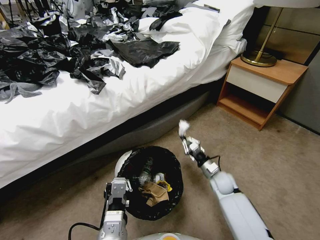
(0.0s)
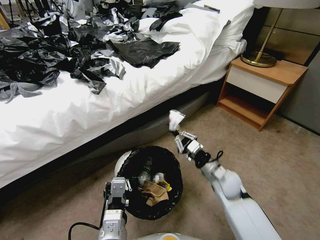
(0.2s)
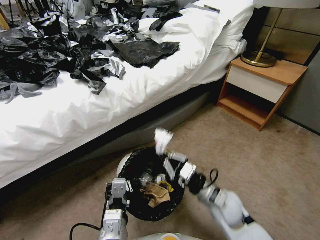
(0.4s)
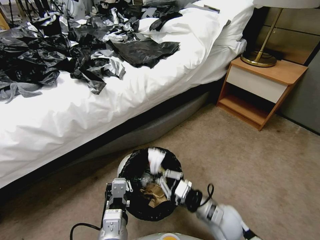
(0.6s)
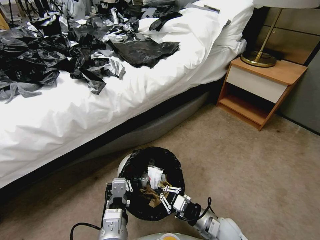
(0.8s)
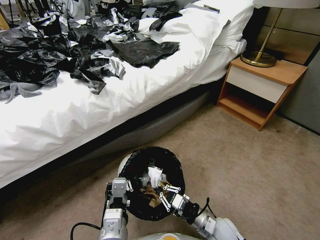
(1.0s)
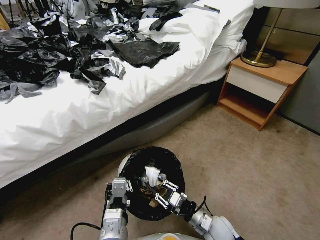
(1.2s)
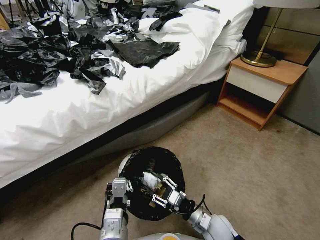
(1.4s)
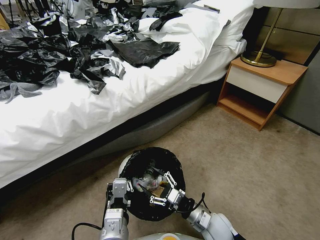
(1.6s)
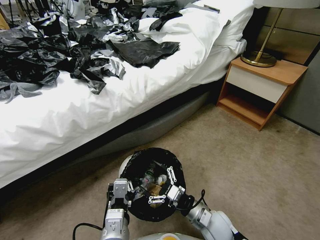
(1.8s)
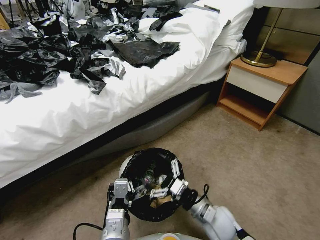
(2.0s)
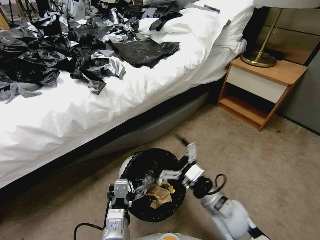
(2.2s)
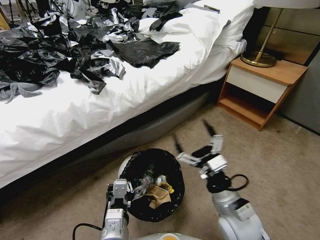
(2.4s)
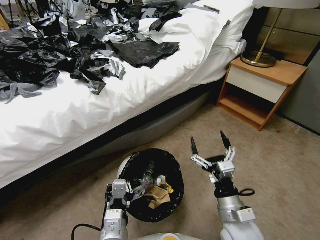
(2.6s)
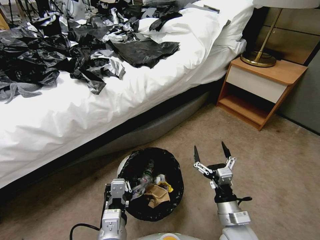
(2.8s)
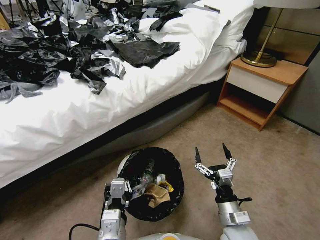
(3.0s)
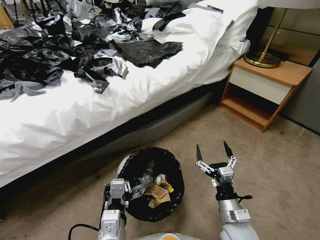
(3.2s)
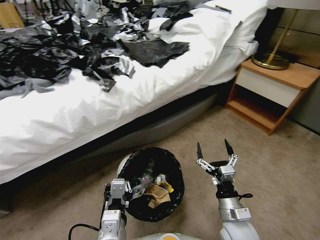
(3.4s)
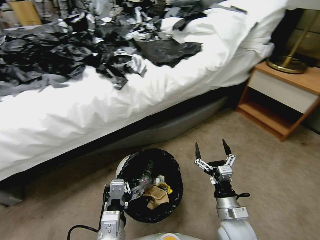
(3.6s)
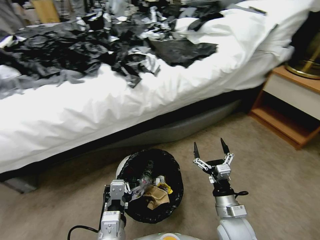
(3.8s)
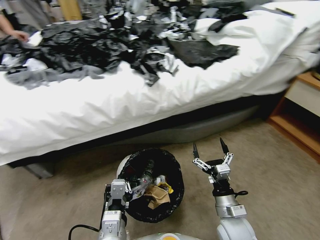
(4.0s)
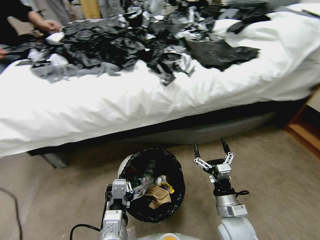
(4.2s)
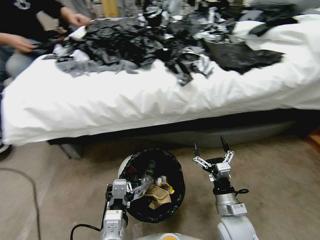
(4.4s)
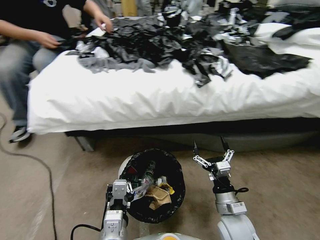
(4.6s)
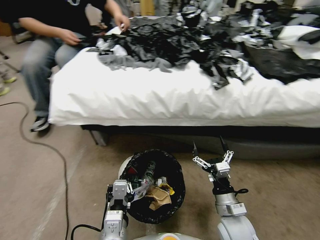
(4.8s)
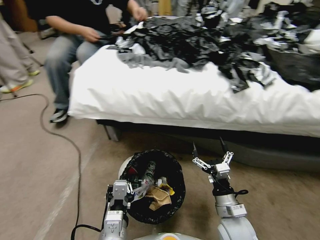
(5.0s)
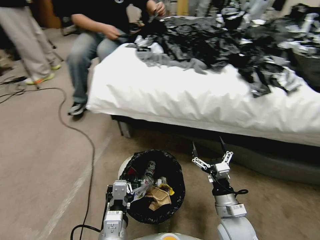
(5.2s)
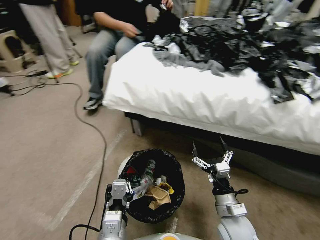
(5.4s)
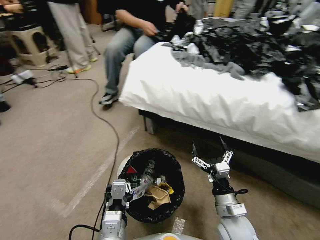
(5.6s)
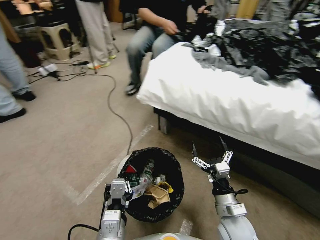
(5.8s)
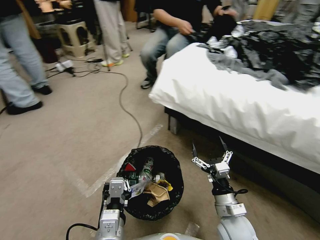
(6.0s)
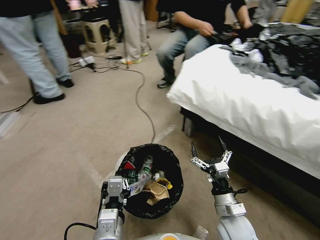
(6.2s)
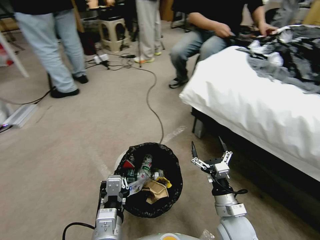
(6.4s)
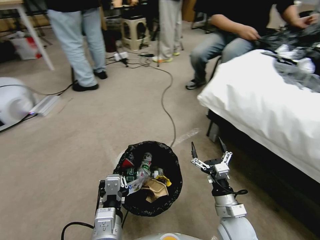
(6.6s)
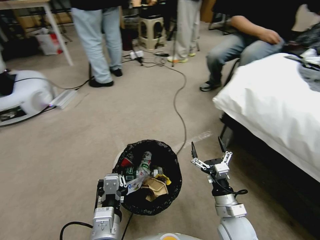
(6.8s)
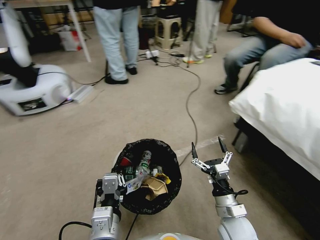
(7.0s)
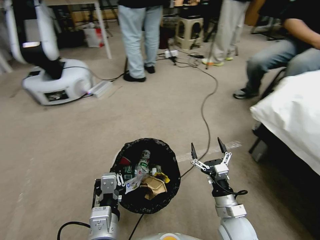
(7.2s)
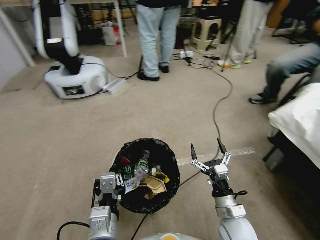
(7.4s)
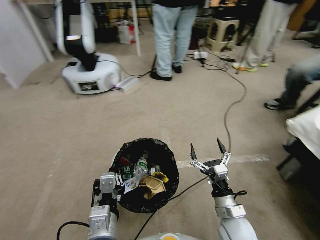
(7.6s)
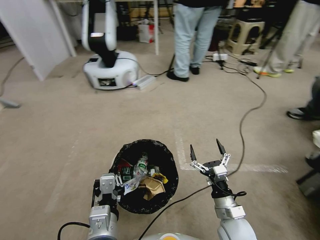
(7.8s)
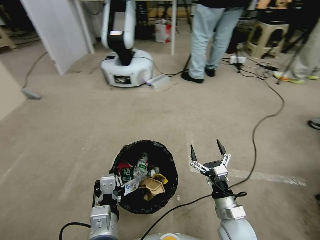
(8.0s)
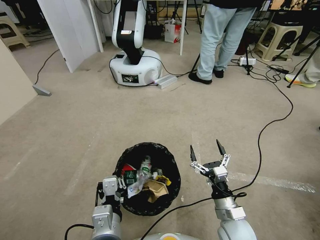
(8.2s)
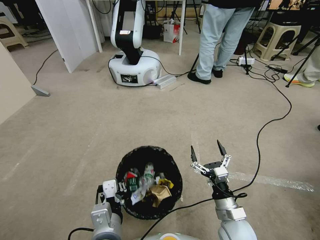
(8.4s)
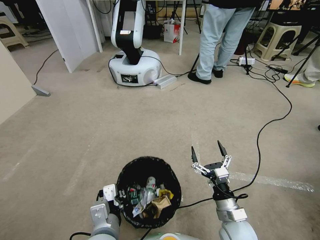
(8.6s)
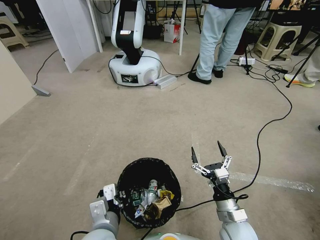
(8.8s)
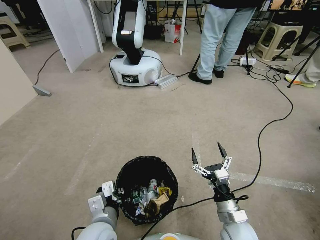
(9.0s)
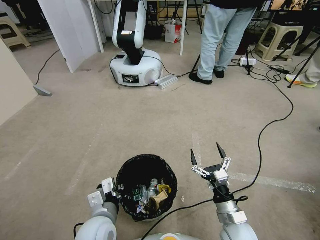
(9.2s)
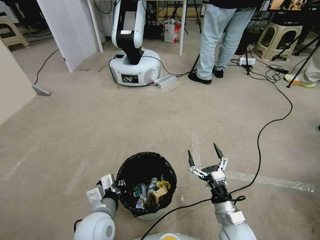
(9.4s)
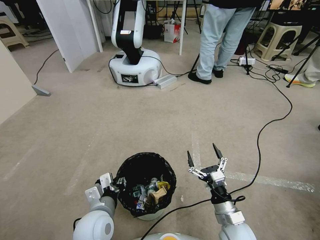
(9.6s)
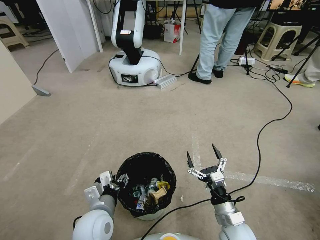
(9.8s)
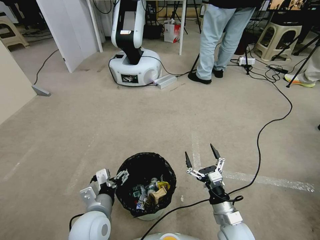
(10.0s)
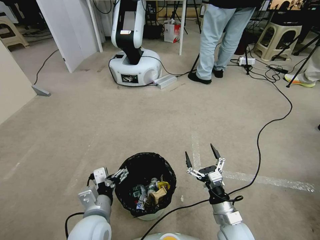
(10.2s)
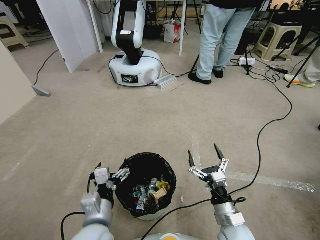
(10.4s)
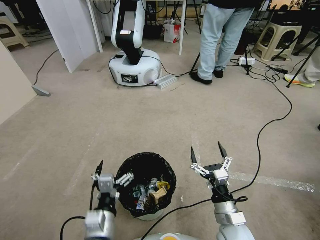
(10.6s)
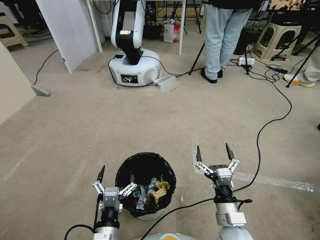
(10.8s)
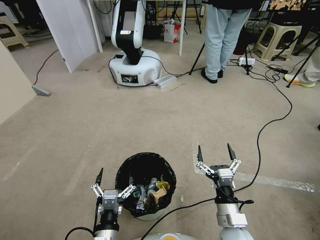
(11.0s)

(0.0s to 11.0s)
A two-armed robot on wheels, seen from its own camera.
Task of the whole recording: Pick up the trash bin, then pick up the garbage from the floor and place it into the trash bin.
0.0s - 1.6s: The right gripper heads backward and to the left, covering some 20 cm, and opens up.
1.6s - 3.2s: The right gripper shifts approximately 5 cm upward.
7.8s - 9.4s: The left gripper moves forward and downward, some 10 cm.
9.4s - 11.0s: The left gripper shifts some 10 cm backward, and opens up, while the right gripper changes place by approximately 5 cm.

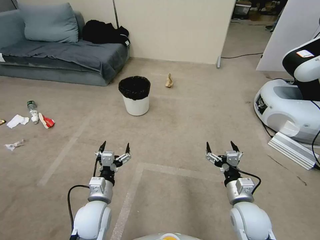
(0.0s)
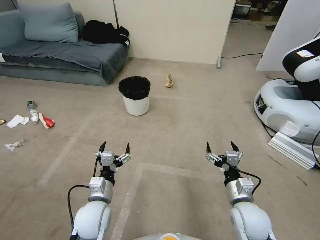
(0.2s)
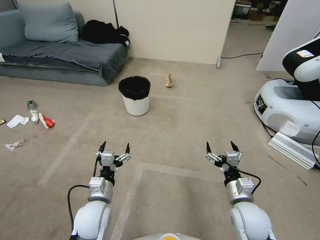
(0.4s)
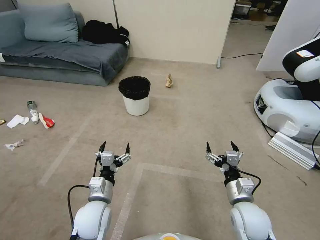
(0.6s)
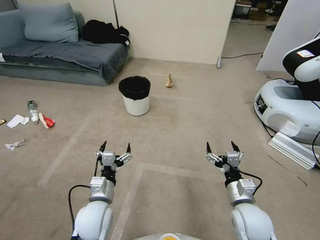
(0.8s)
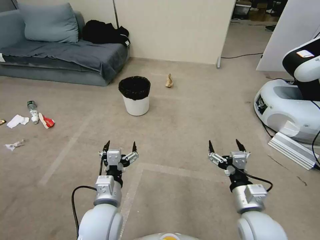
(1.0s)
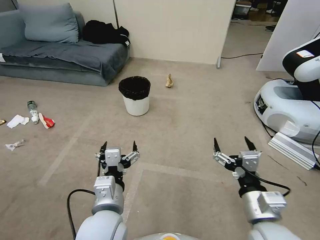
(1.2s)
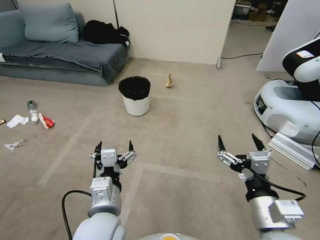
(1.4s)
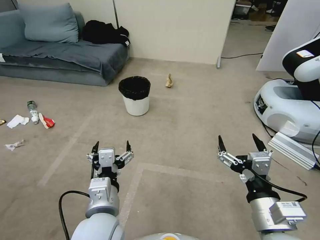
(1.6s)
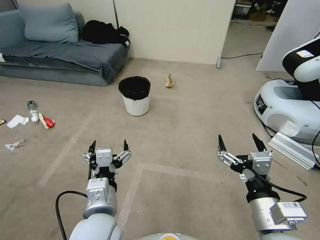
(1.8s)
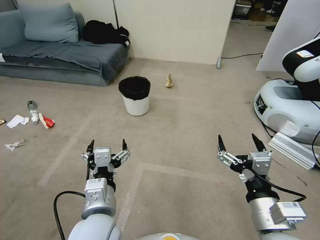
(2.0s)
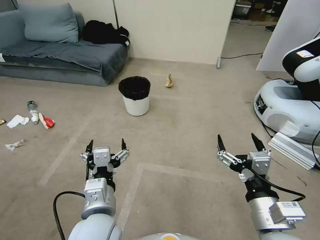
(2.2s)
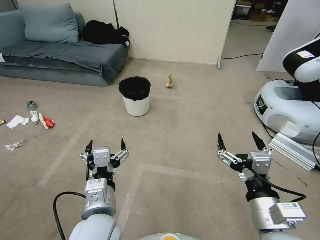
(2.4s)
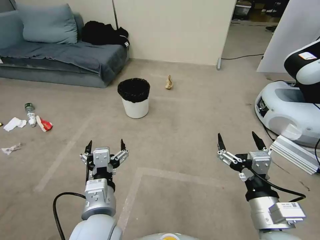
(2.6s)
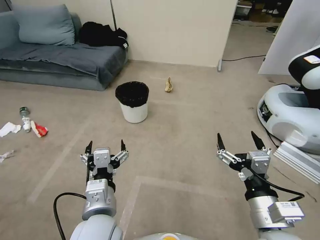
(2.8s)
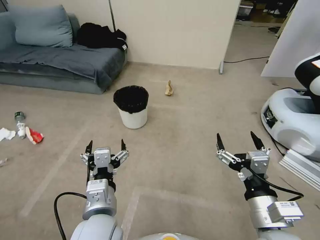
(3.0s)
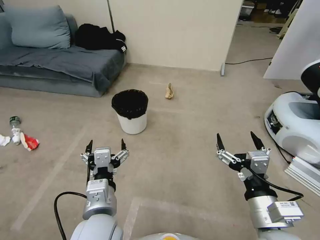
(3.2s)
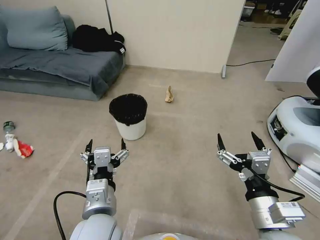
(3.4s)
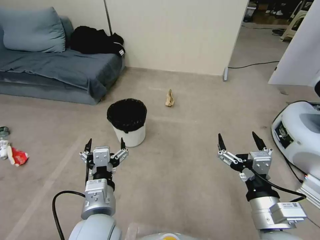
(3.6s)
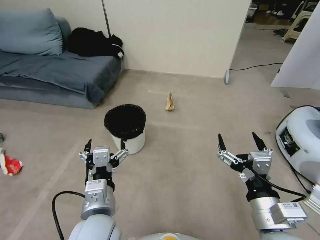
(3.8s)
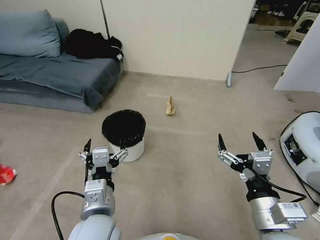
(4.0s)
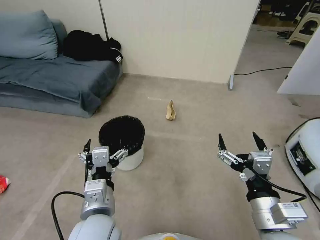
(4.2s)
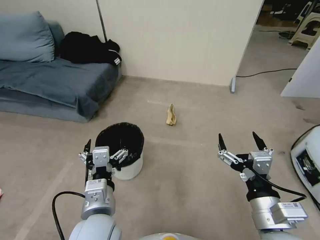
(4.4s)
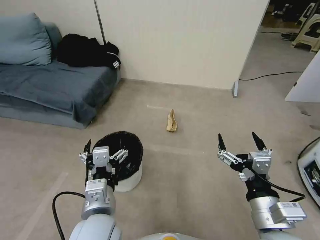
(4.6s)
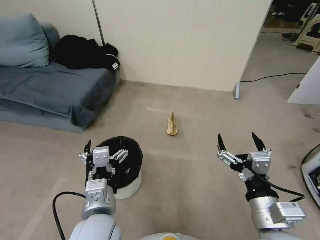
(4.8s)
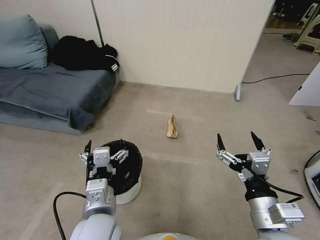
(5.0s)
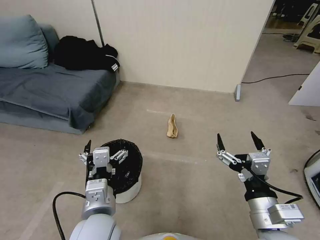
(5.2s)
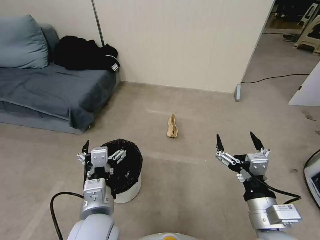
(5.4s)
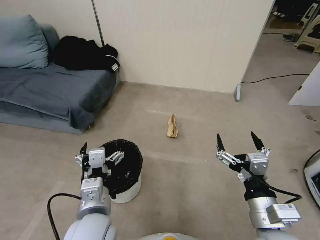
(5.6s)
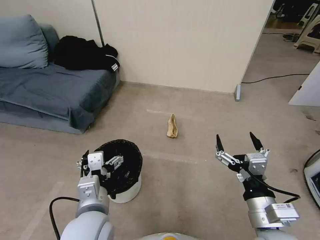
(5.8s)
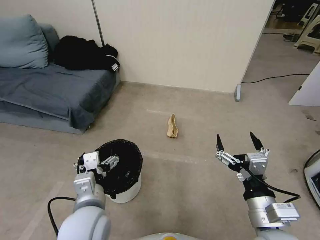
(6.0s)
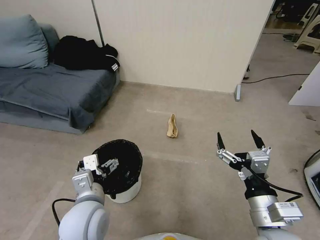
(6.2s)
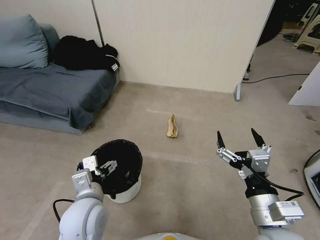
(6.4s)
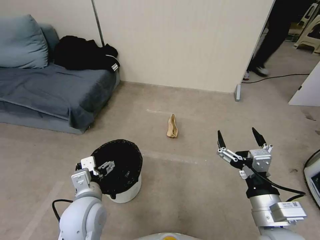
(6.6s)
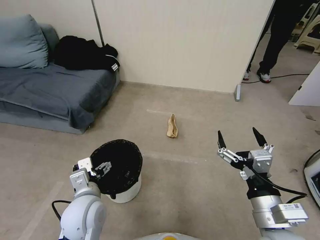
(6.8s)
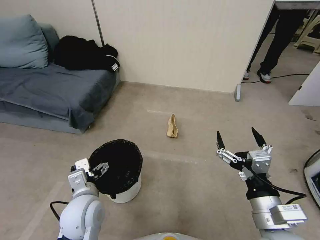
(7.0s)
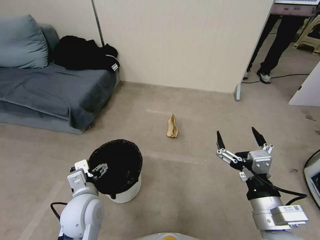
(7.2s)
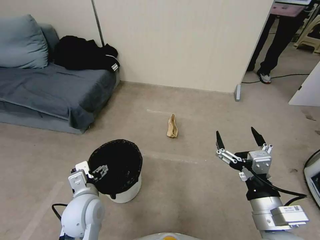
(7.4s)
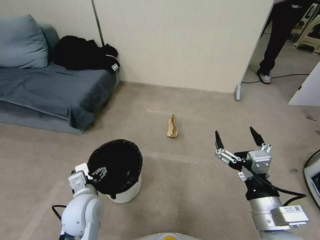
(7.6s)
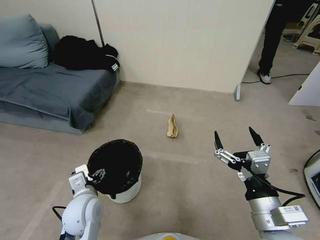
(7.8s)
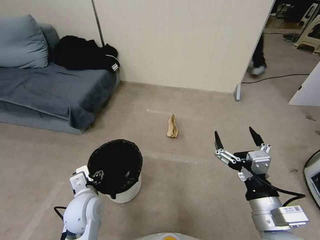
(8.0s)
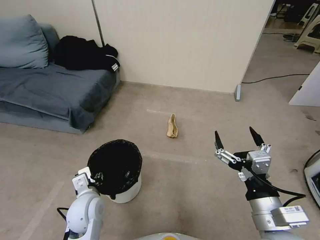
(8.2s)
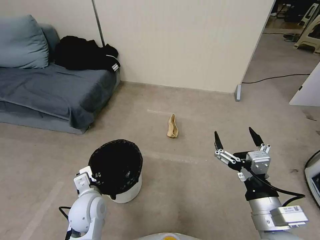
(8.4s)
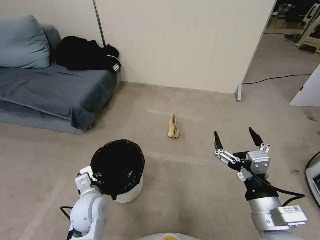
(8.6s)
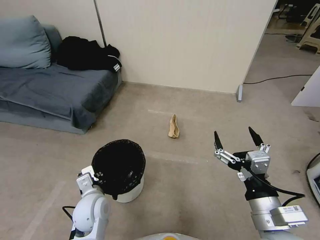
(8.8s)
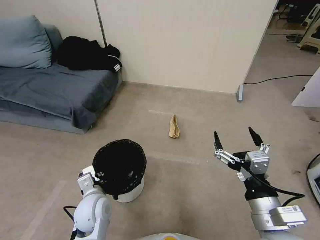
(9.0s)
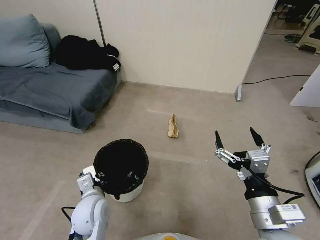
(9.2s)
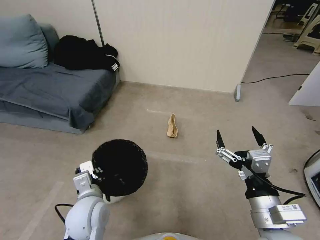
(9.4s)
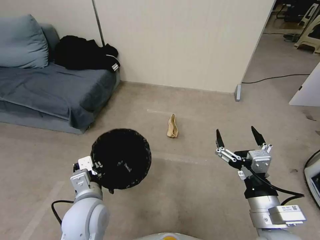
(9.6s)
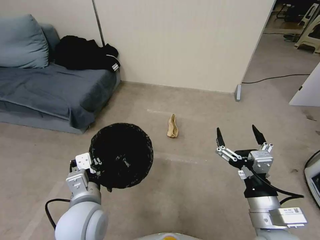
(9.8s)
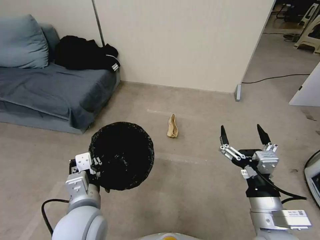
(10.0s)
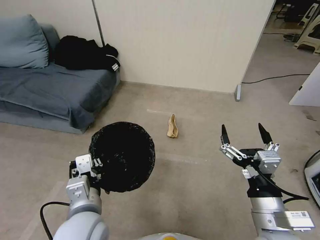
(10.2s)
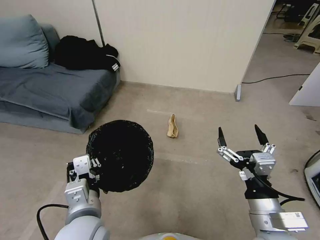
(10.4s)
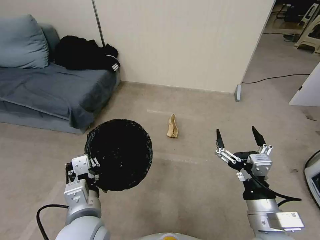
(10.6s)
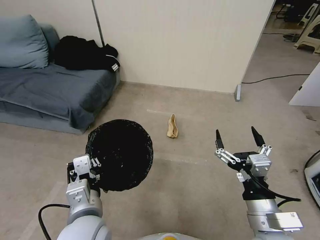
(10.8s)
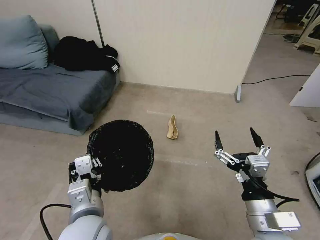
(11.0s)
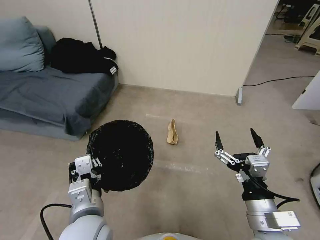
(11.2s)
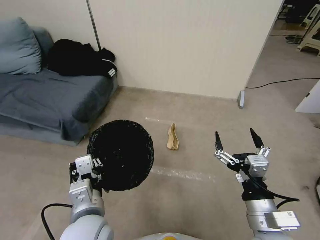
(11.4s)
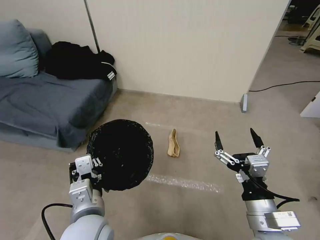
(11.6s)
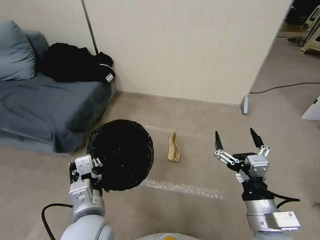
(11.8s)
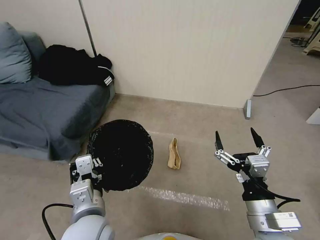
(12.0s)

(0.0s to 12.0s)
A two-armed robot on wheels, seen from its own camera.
Task of the whole recording: Pick up the trash bin, then pick up the garbage from the floor and place it into the trash bin.
6.0s - 7.6s: The left gripper goes some 5 cm downward.
7.6s - 9.0s: The left gripper closes up.
9.0s - 10.4s: The left gripper is displaced upward and backward by about 15 cm.
